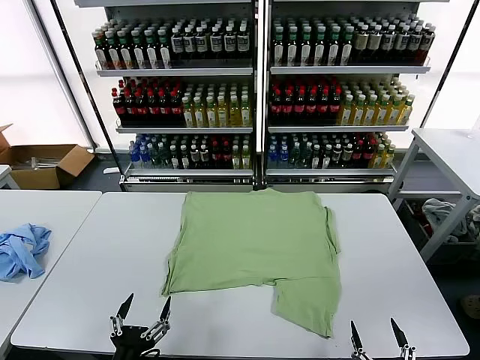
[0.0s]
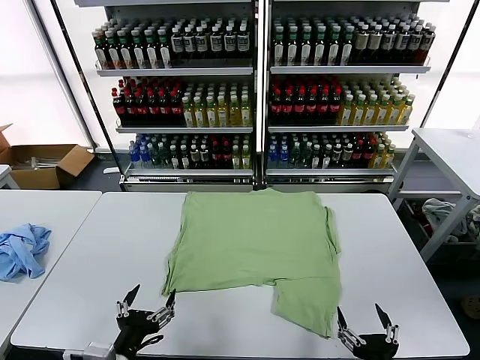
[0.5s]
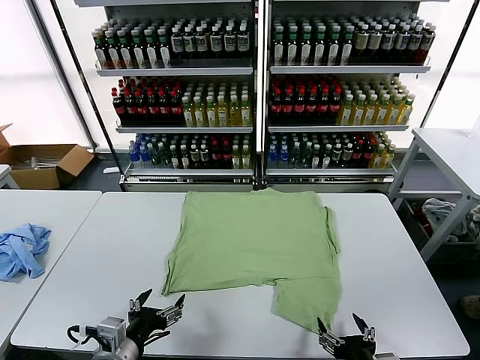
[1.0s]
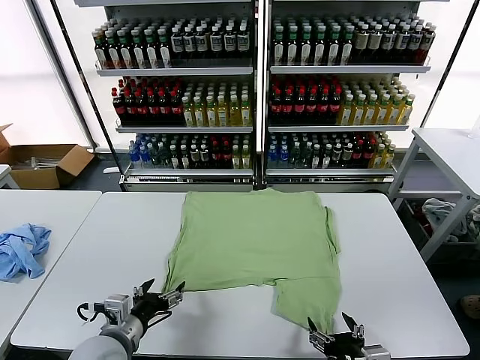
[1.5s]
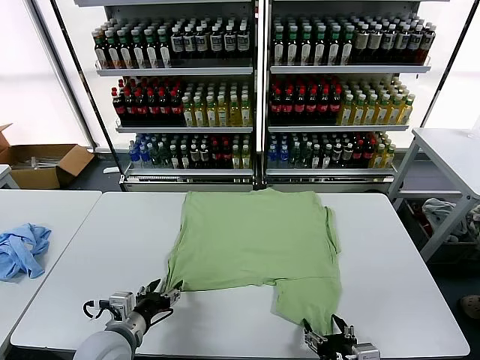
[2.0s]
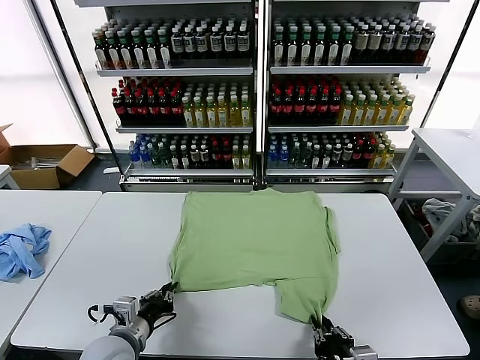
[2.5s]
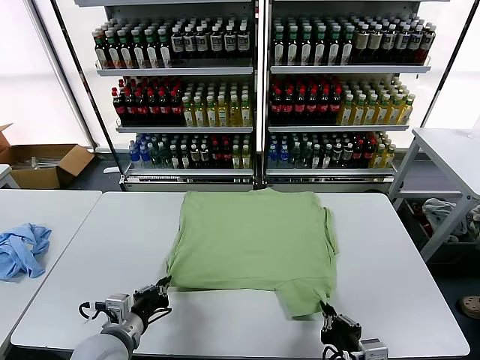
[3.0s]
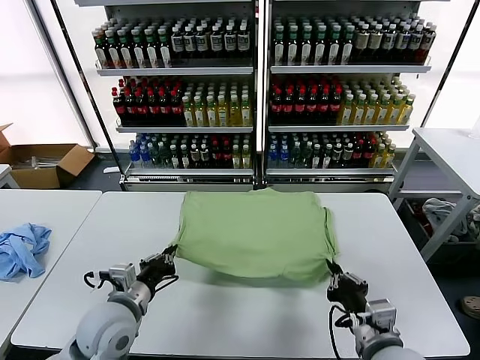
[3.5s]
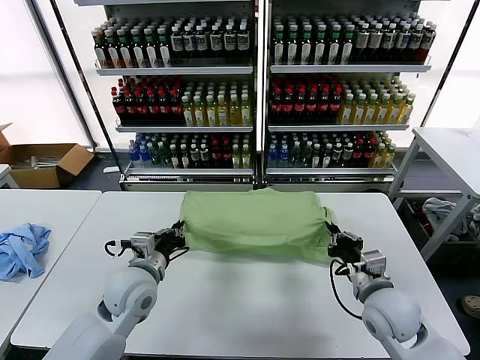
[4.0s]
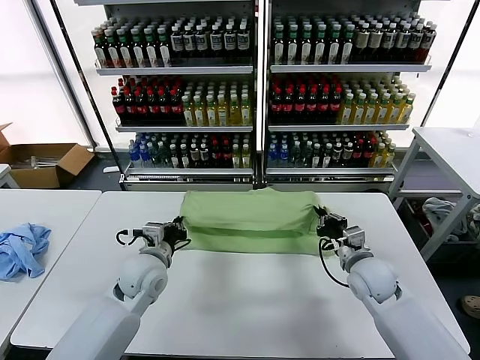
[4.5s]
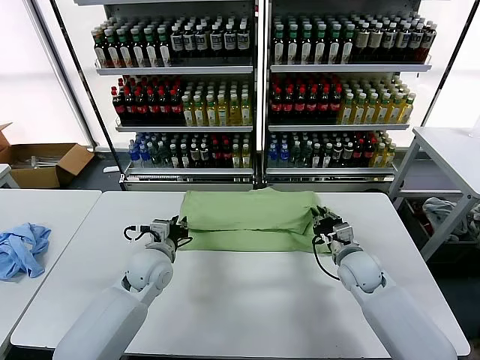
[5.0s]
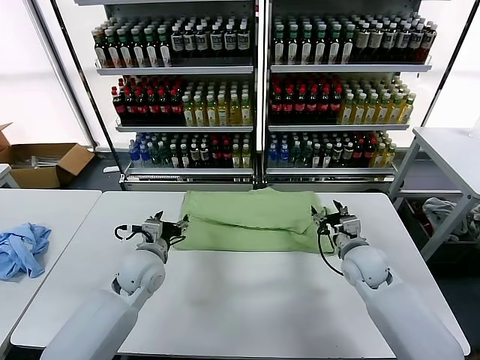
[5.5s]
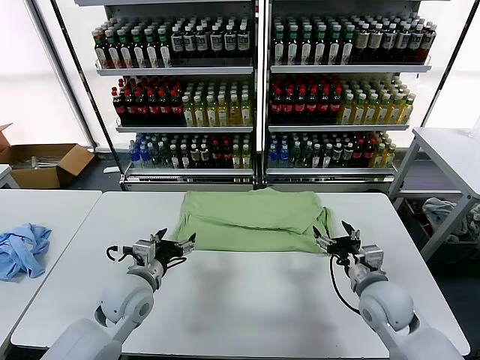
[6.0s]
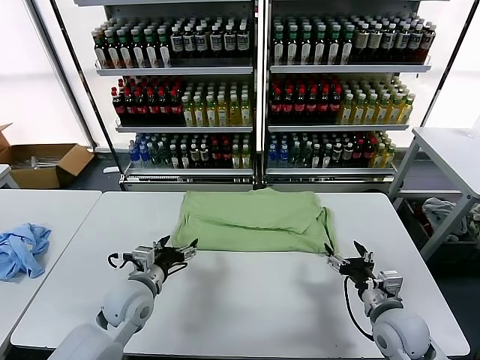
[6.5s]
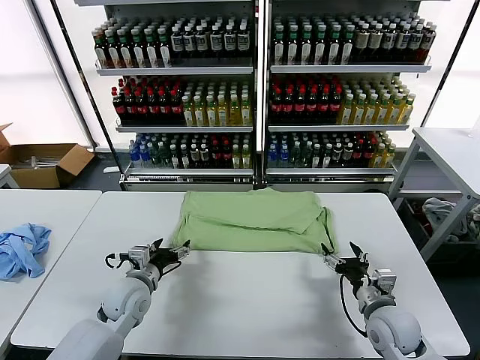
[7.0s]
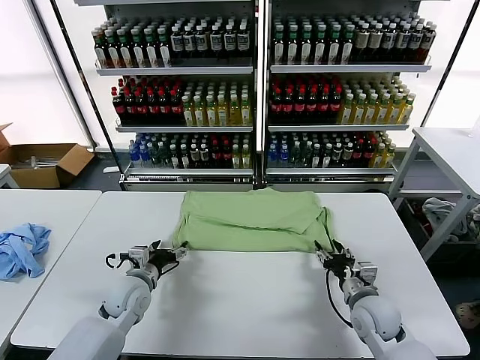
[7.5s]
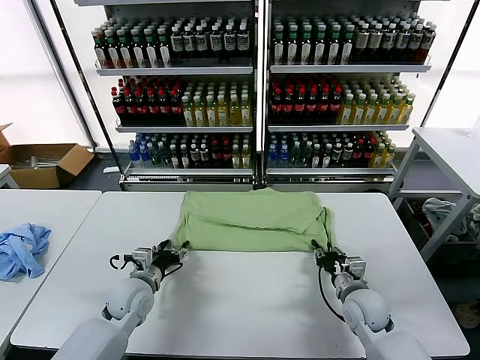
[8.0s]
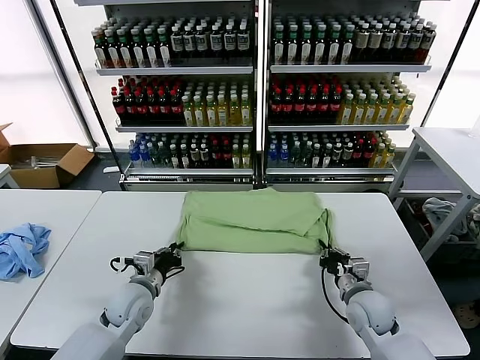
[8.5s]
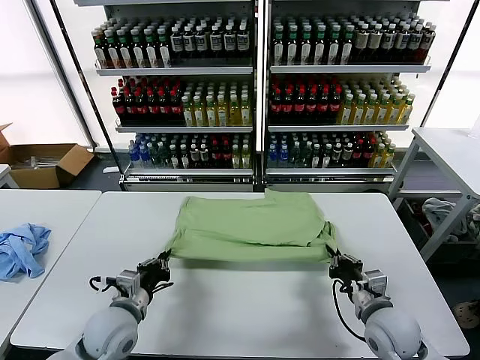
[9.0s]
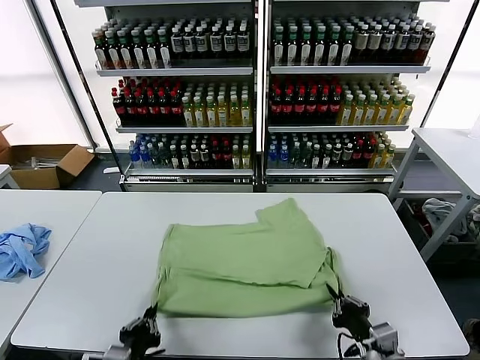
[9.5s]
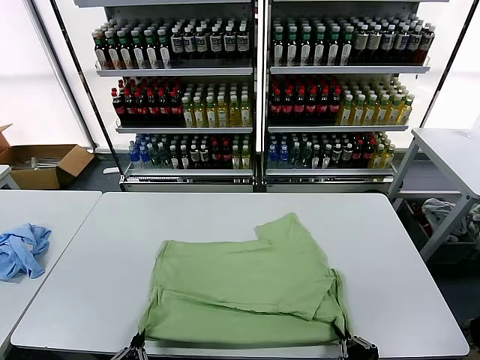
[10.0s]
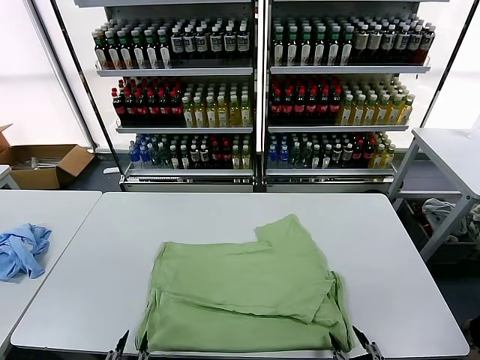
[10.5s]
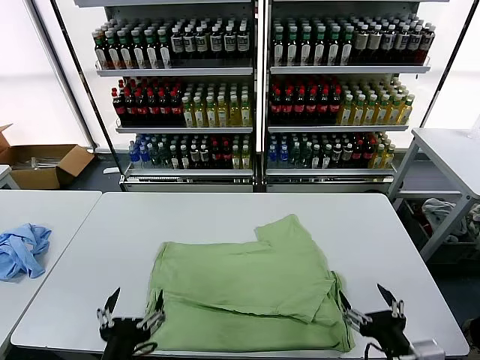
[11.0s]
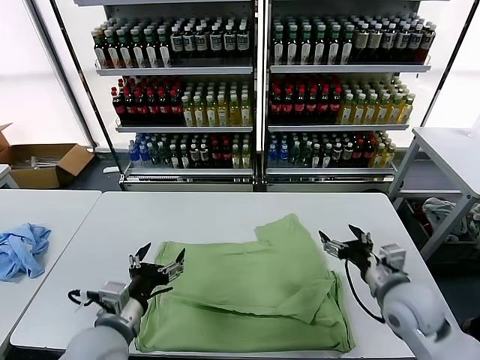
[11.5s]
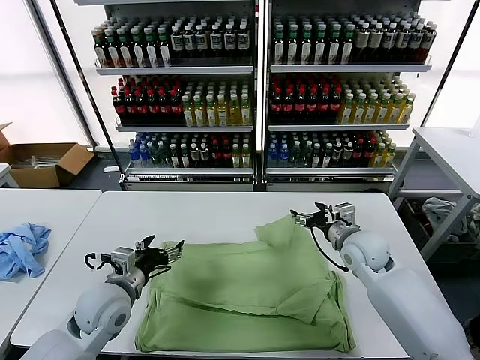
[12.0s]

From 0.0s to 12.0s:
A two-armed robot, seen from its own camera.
Task of the whole recording: fold and organize the clothes.
Step, from 0.0s to 2.5s: use both grippers simultaneously to clamp the lower edge of the clothing fabric.
Step, from 3.0s to 5.0s: use both grippers to drag the lower edge of the fabric forward and fold it over the upper edge.
Step, from 5.5s to 10.5s: Drag the clothes downward with both gripper.
From 2.0s to 4.0s: The right gripper shifts some 20 cm forward, and closes up; the left gripper travels forward and upward by roughly 15 cm, and closes up.
From 4.0s to 6.0s: The right gripper goes forward and returns, about 10 cm each way, and opens. The left gripper travels forward and back again, roughly 5 cm each way, and opens.
From 6.0s to 8.0s: The two grippers go about 5 cm downward. The right gripper closes its fingers.
From 8.0s to 10.0s: The two grippers go about 30 cm backward. The left gripper closes its fingers.
From 10.0s to 12.0s: The two grippers go some 30 cm forward. The right gripper opens its fingers, while the left gripper opens its fingers.

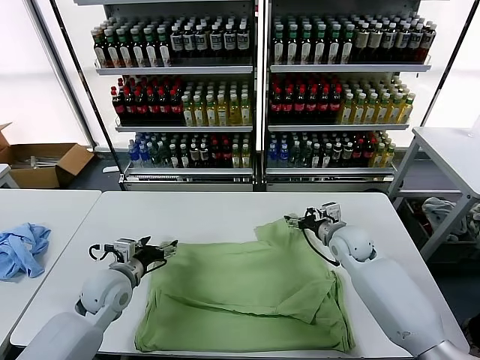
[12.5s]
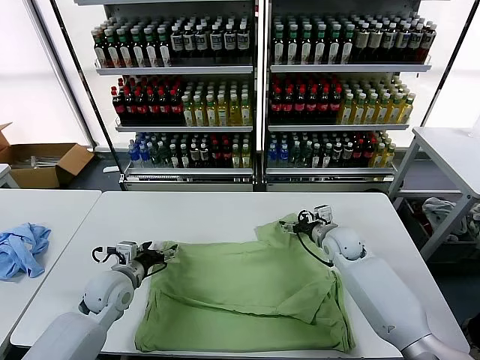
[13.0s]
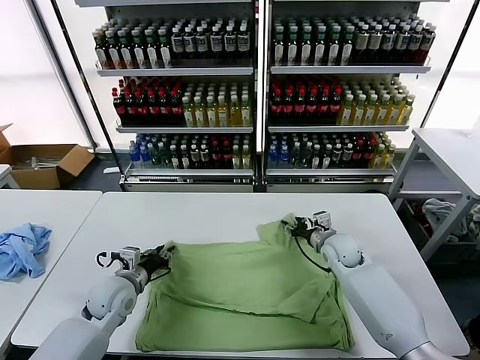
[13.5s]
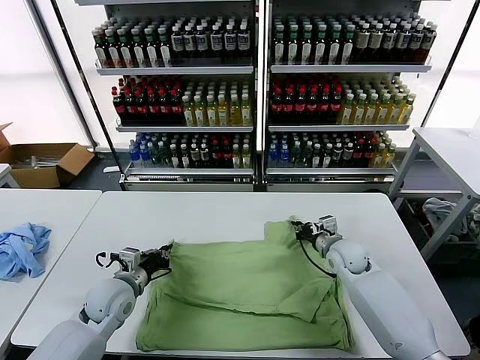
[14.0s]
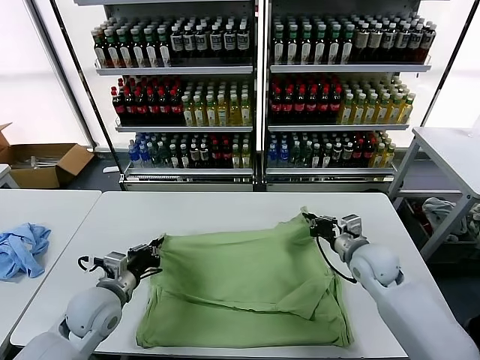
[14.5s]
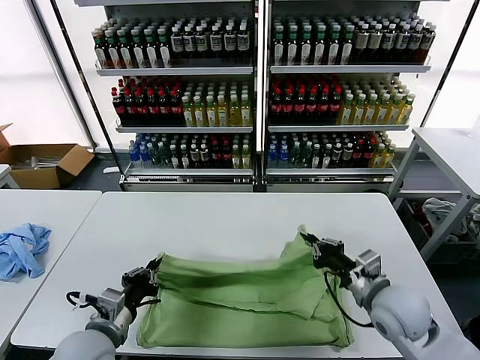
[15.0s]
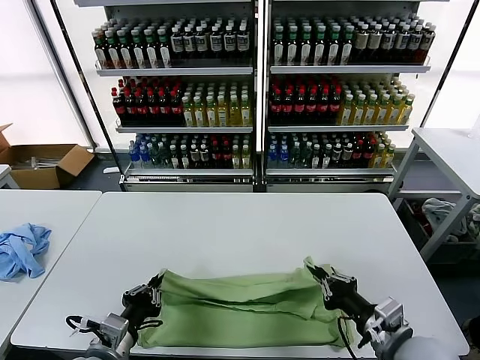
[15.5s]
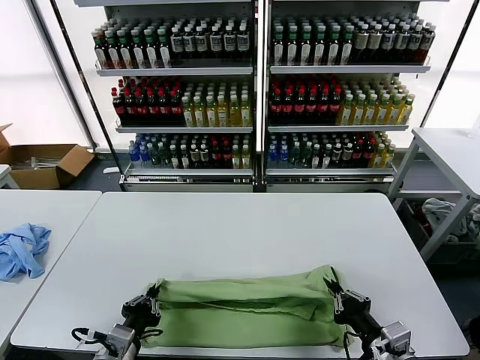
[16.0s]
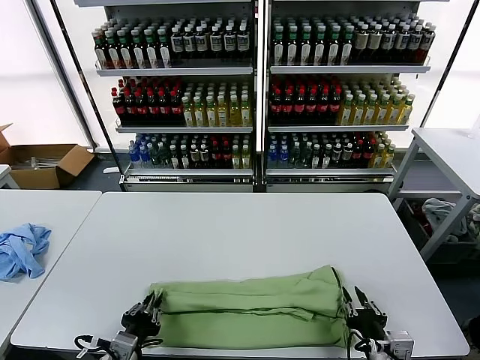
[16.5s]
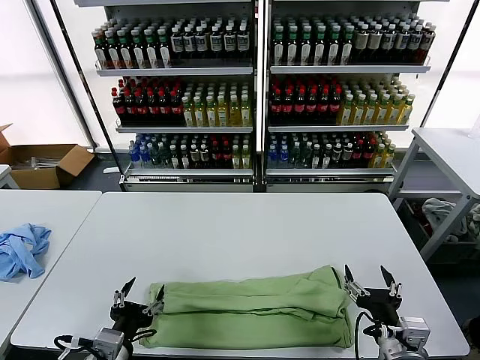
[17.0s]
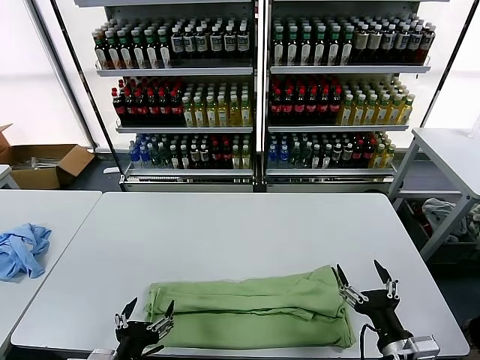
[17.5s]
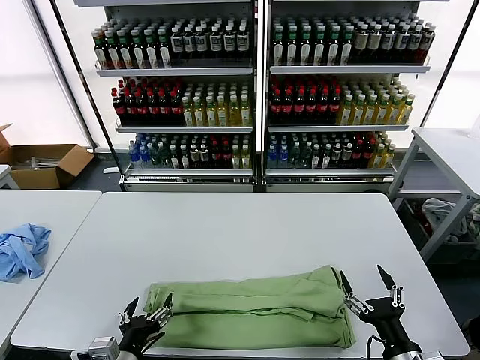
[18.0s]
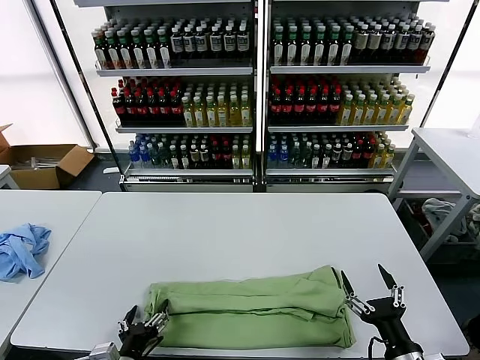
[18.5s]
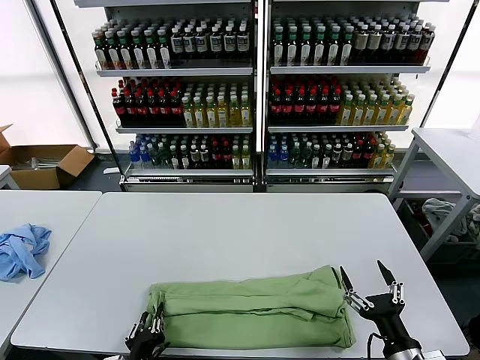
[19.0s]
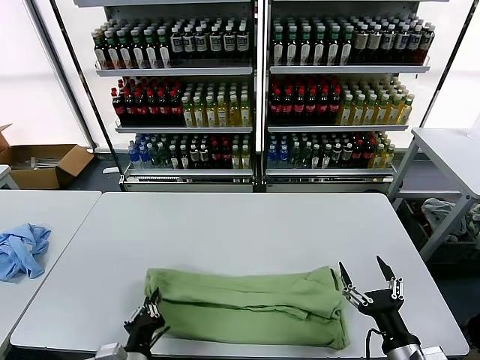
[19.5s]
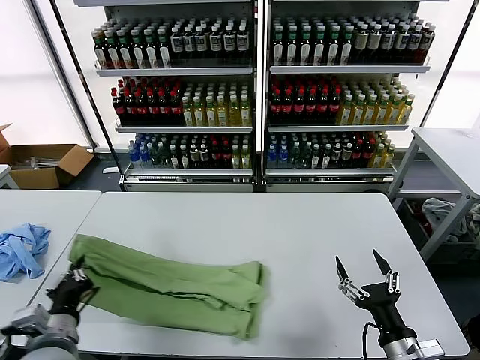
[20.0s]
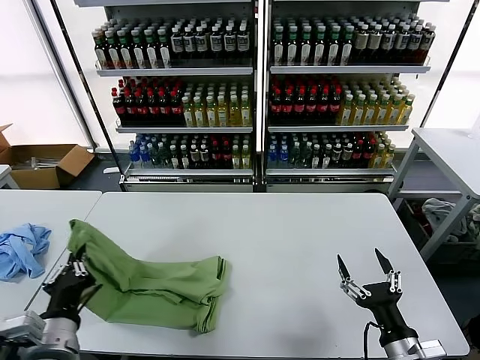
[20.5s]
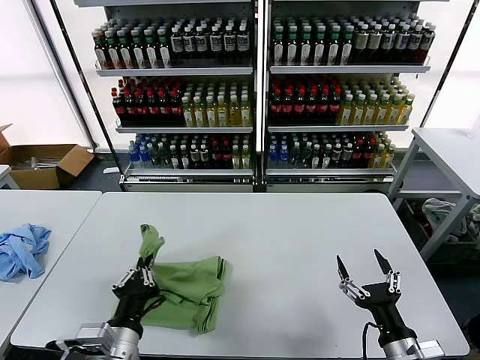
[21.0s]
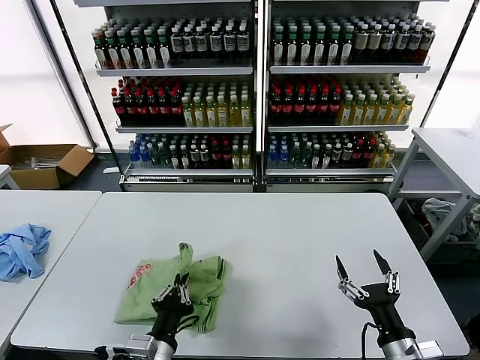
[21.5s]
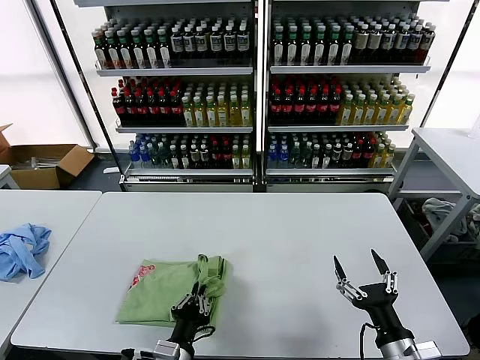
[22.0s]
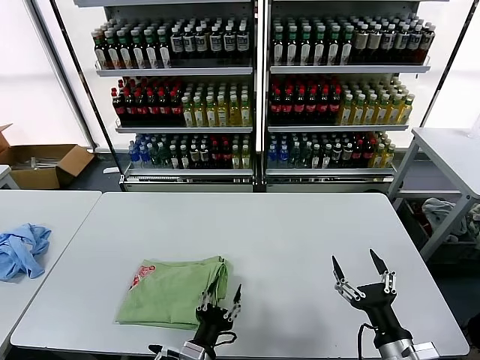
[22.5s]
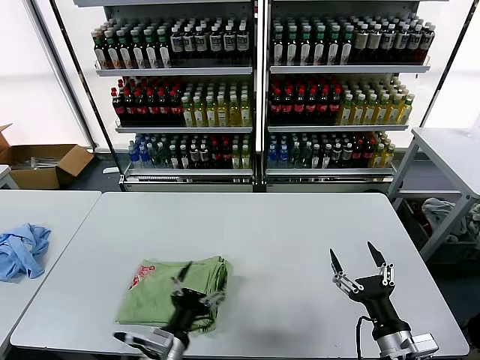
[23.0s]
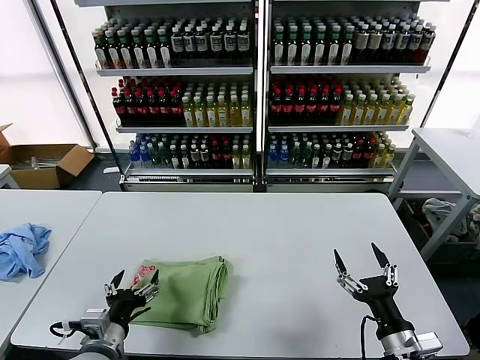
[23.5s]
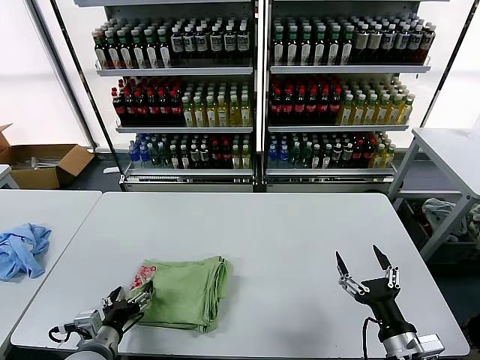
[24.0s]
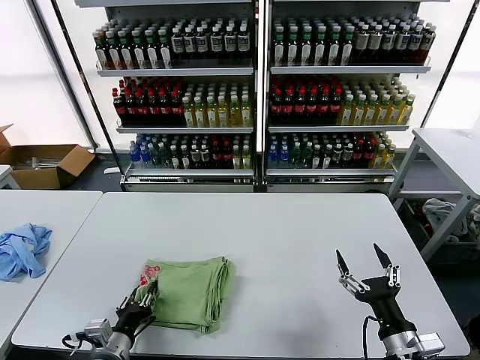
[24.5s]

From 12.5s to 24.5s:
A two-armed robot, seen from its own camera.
Task of the whole recording: fold and organize the clothes.
Step, from 14.0s to 16.5s: use both grippers to drag the upper edge of the fabric backward and fold it over the lower edge.
Step, from 17.0s to 19.0s: use the left gripper to clamp the left edge of the fabric.
Step, from 19.5s to 22.0s: use the left gripper to drag the left edge of the fabric to the left and folds it over the right edge.
From 12.5s to 14.5s: The right gripper moves backward, about 10 cm, and closes, while the left gripper is displaced backward by some 5 cm, and closes up.
From 14.5s to 16.5s: The left gripper shifts some 15 cm backward, while the right gripper is displaced backward by roughly 25 cm, and opens its fingers.
From 16.5s to 18.5s: The left gripper opens, while the right gripper opens.
From 18.5s to 20.5s: The left gripper moves upward and to the left, roughly 15 cm, and closes up.
From 20.5s to 22.5s: The left gripper travels to the right and downward by about 20 cm, and opens.
From 22.5s to 24.5s: The left gripper heads to the left, covering some 15 cm, and opens, then closes once more.

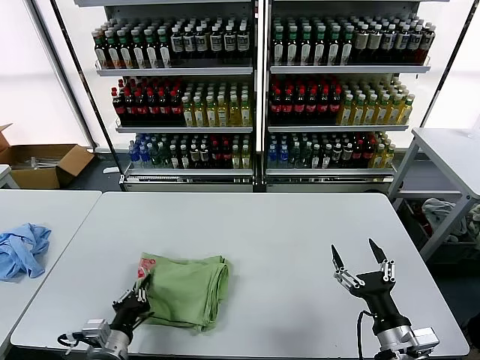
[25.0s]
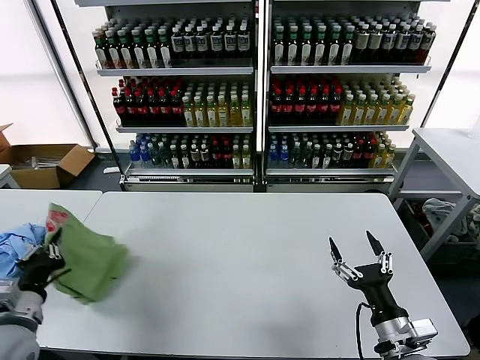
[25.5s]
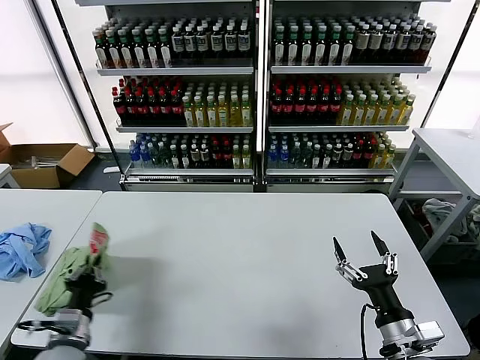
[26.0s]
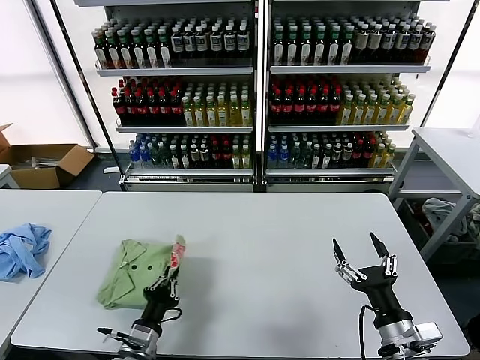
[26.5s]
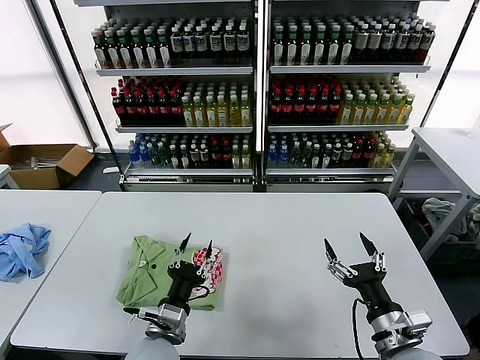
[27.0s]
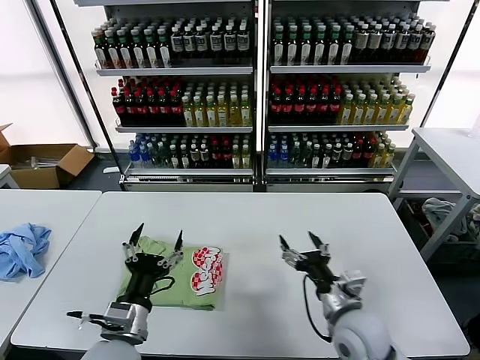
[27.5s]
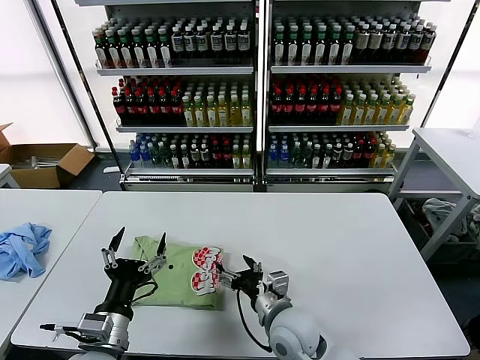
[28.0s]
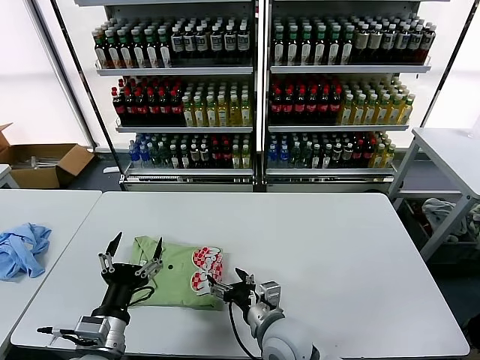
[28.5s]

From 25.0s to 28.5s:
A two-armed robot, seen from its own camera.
Task of the whole recording: fold and organize the clothes.
From 25.0s to 27.0s: The left gripper goes approximately 10 cm to the right, and opens.
From 27.0s to 28.5s: The left gripper shifts about 10 cm to the left and upward, and opens; the right gripper moves to the left, about 20 cm.
